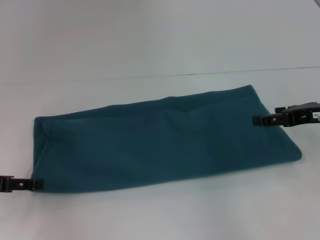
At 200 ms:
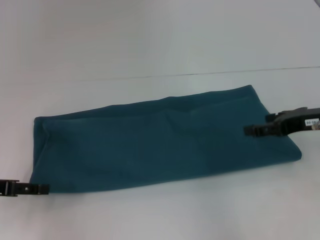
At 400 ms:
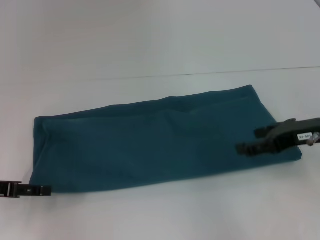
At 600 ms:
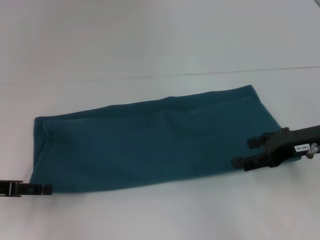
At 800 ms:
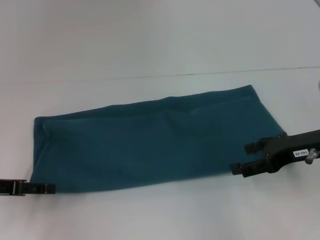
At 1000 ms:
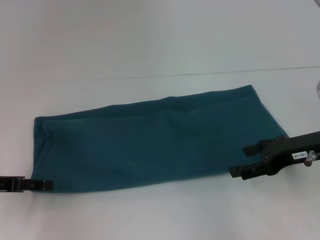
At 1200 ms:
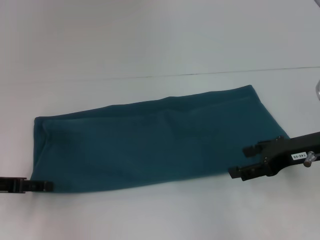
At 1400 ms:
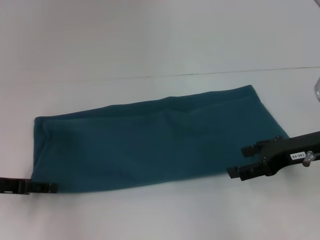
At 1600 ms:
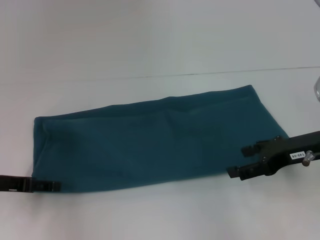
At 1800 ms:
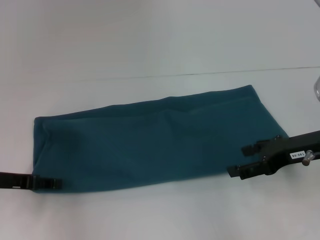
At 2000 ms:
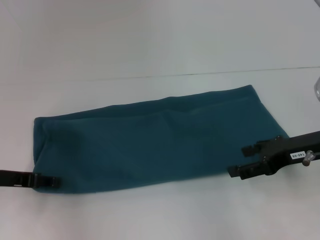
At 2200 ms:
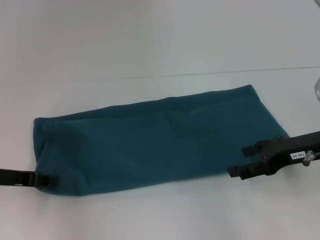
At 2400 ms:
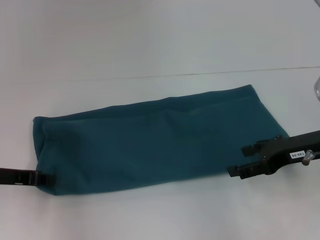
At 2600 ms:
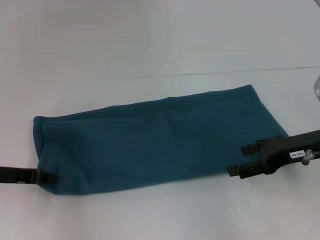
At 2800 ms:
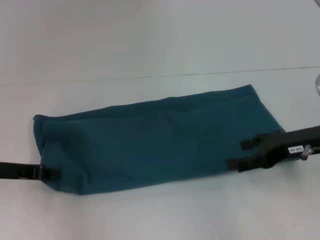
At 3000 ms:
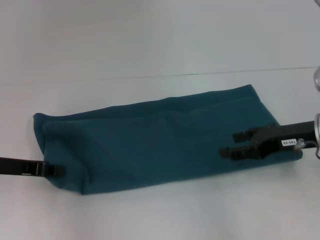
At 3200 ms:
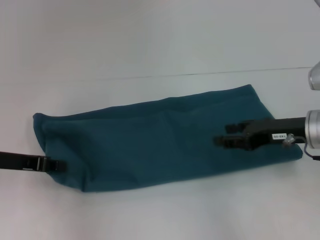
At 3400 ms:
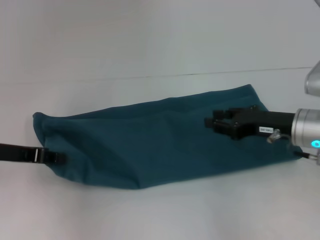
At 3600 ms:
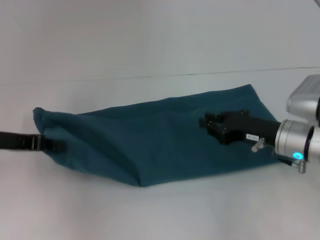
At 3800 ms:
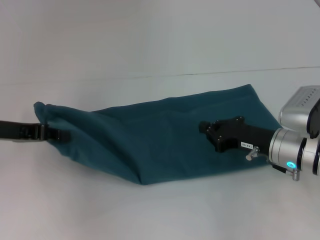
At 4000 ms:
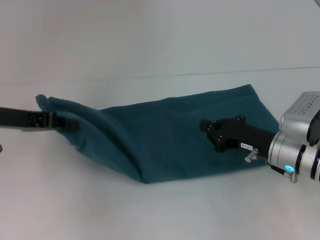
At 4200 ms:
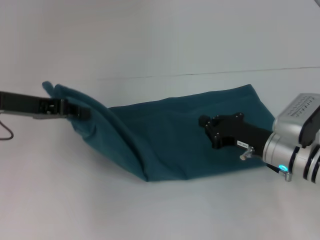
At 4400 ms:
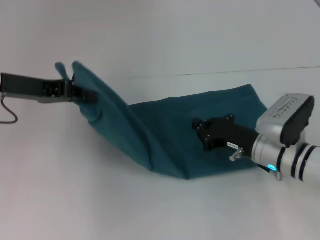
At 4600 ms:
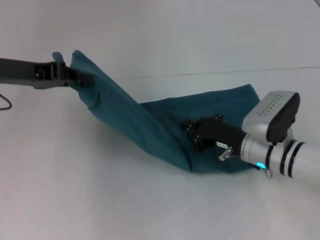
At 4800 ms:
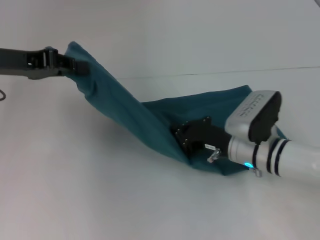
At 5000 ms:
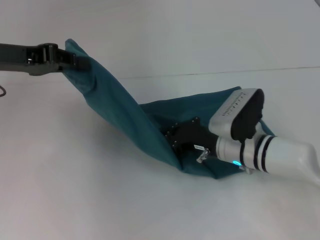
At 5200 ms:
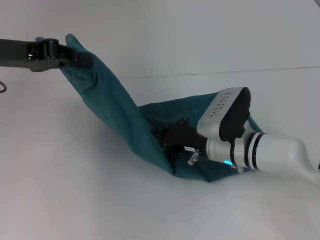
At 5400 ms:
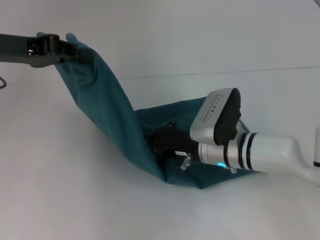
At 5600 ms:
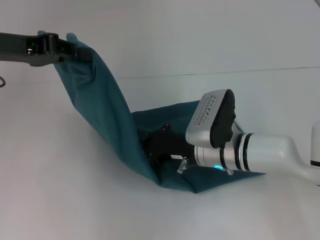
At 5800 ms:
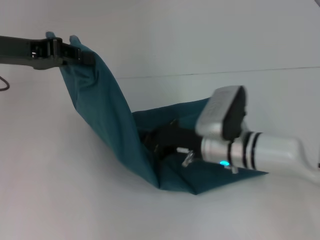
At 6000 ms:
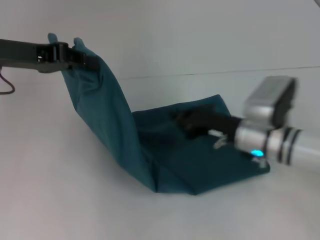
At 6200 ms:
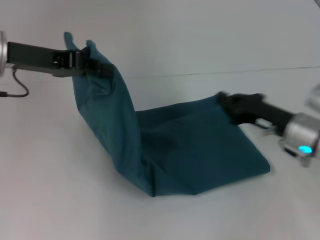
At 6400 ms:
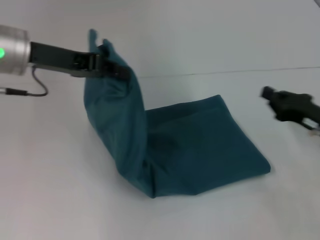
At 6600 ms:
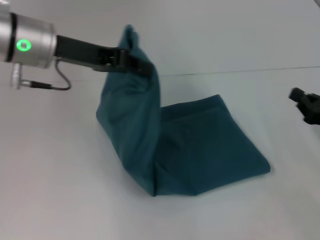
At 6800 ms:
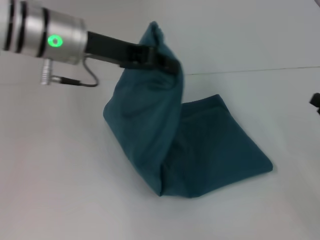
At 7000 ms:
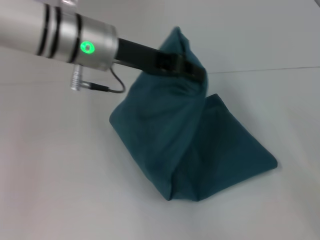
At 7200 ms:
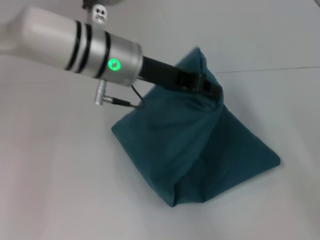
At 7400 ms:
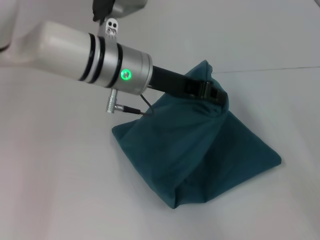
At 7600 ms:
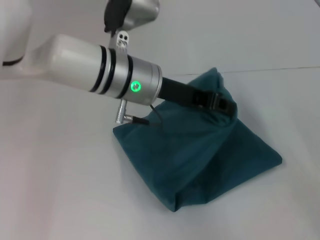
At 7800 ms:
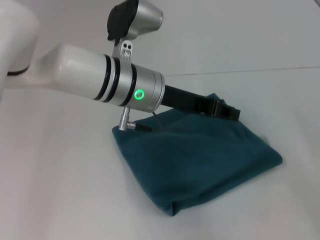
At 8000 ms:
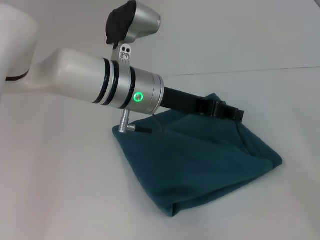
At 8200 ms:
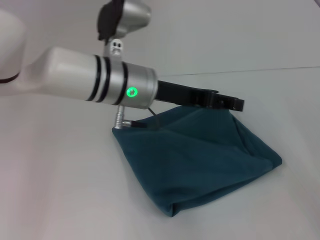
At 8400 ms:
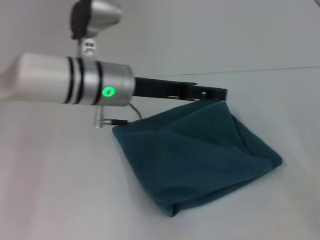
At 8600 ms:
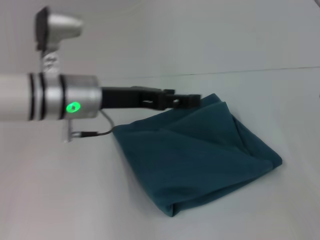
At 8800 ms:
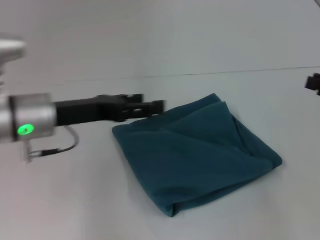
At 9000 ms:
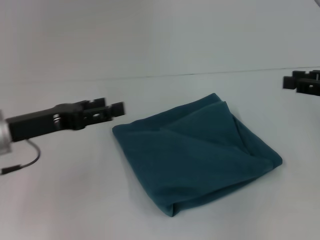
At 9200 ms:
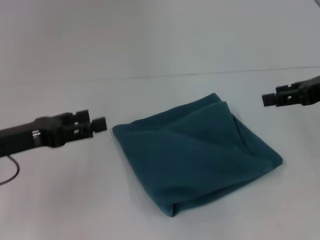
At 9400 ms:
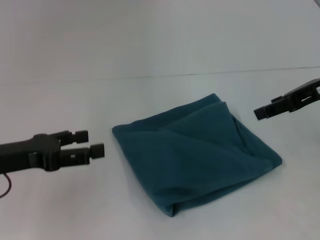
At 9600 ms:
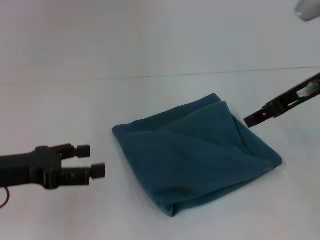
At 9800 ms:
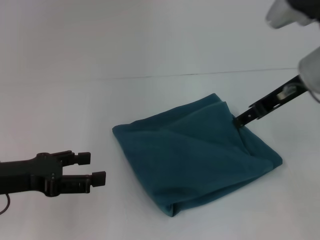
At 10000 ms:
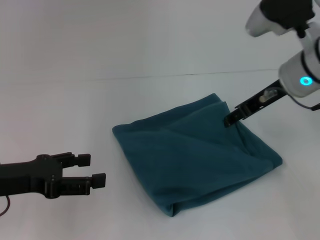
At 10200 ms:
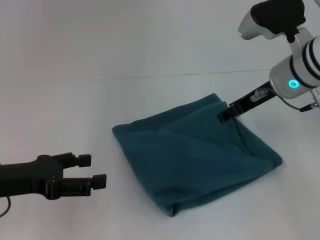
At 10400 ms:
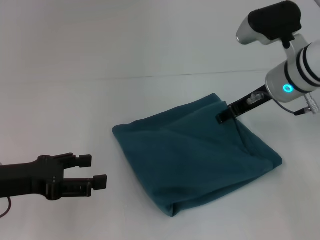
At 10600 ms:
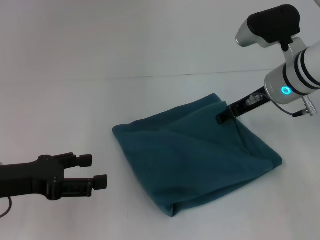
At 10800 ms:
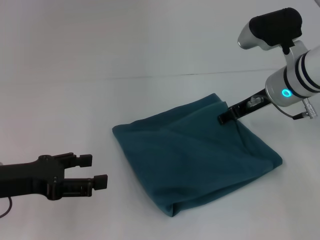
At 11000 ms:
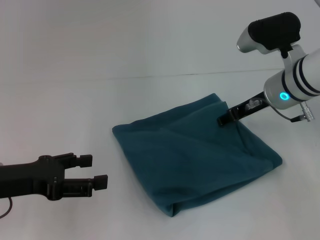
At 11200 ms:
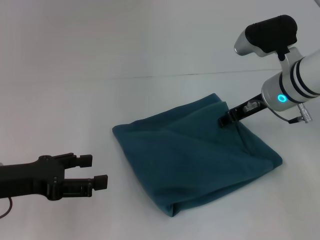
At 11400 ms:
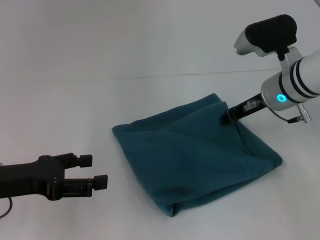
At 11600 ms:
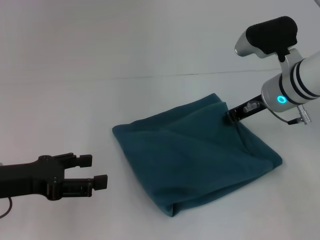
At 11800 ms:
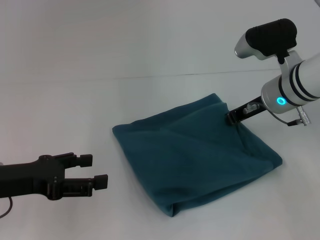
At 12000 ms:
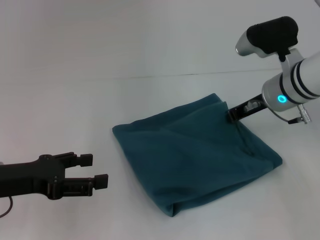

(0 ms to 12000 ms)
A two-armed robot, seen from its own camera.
Step, 0 ms - 5800 ms: Press the middle of the clothes with your right hand.
Step, 6000 ms - 8000 ms: Fold the clothes to the left.
1600 ms - 3000 ms: The left gripper closes its fingers.
3000 ms - 4400 ms: The left gripper shifts approximately 10 cm upward and forward; the right gripper moves downward and to the left, roughly 10 cm, and closes up.
4400 ms - 6000 ms: The right gripper moves roughly 10 cm to the left and comes back.
6000 ms - 7600 ms: The right gripper moves to the right and backward, some 25 cm. The left gripper shifts some 20 cm to the right.
7600 ms - 9000 ms: The right gripper heads upward, covering about 10 cm. The left gripper travels to the left by about 20 cm, and opens its fingers.
9000 ms - 10400 ms: The left gripper shifts about 5 cm backward, while the right gripper is displaced to the left and forward by approximately 20 cm, and opens.
10400 ms - 12000 ms: The right gripper closes.

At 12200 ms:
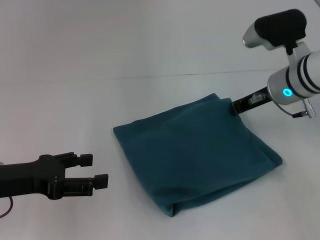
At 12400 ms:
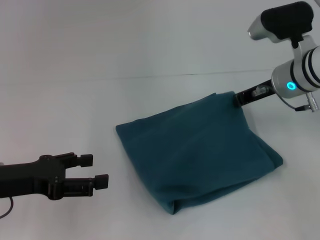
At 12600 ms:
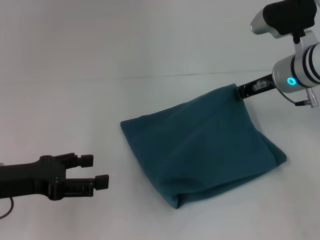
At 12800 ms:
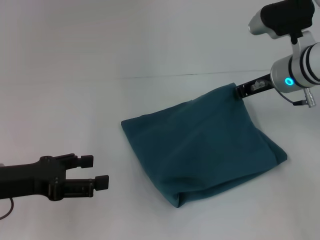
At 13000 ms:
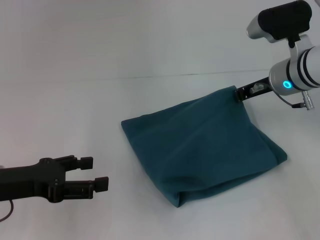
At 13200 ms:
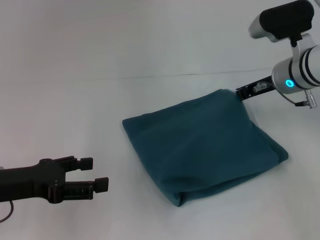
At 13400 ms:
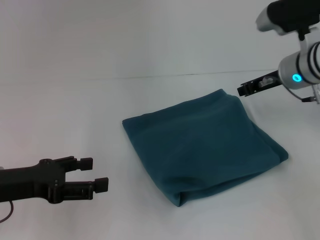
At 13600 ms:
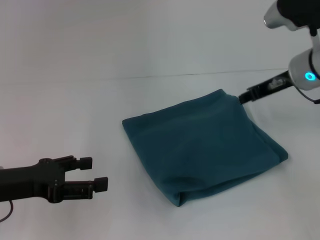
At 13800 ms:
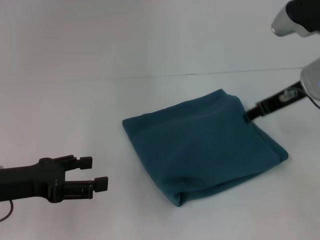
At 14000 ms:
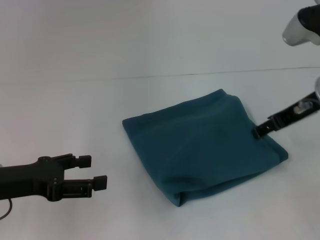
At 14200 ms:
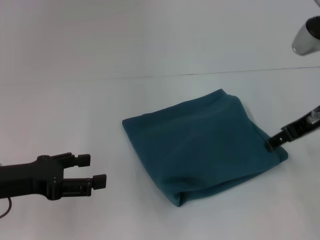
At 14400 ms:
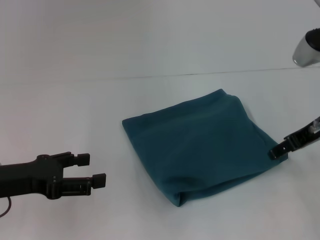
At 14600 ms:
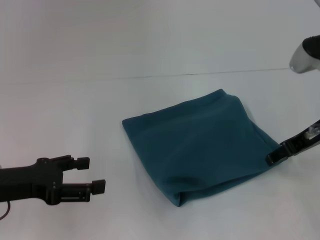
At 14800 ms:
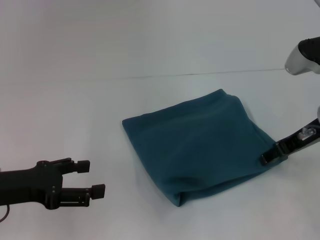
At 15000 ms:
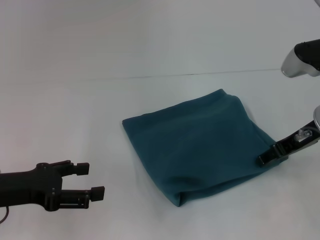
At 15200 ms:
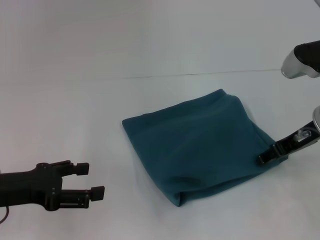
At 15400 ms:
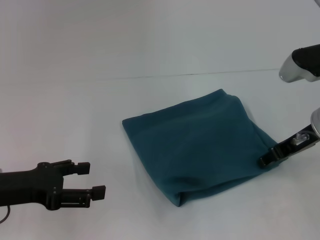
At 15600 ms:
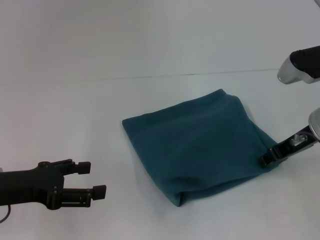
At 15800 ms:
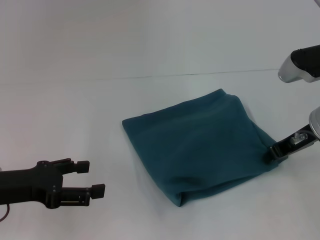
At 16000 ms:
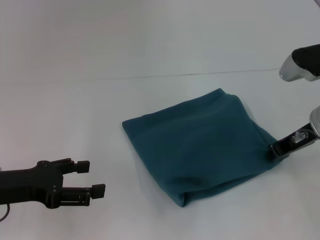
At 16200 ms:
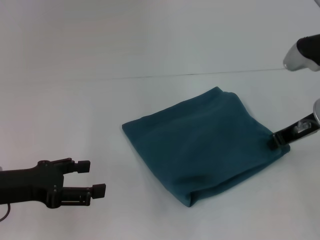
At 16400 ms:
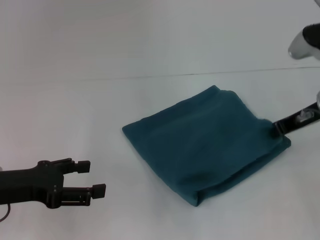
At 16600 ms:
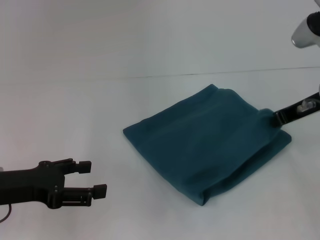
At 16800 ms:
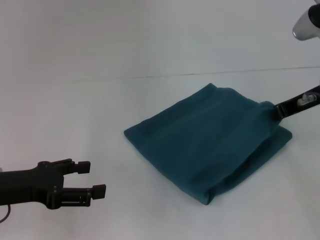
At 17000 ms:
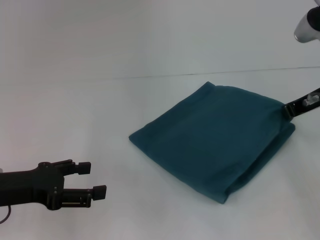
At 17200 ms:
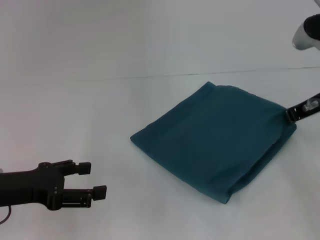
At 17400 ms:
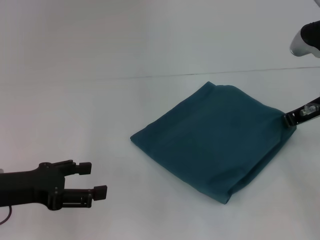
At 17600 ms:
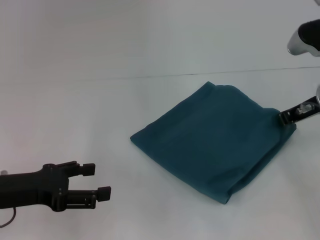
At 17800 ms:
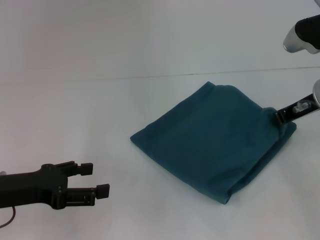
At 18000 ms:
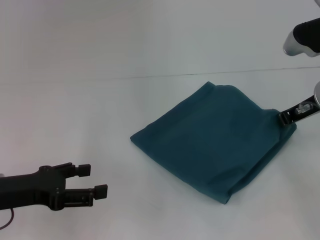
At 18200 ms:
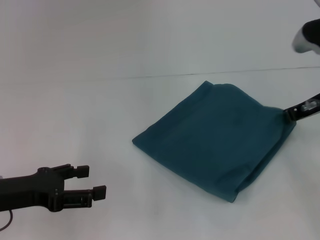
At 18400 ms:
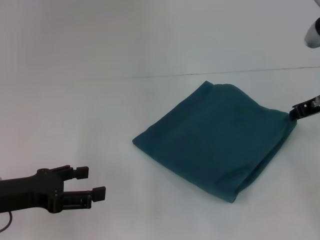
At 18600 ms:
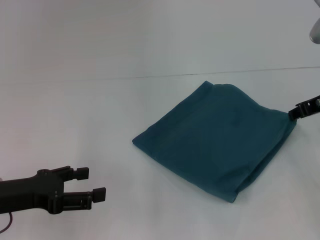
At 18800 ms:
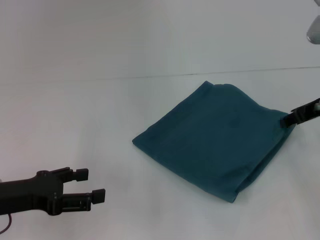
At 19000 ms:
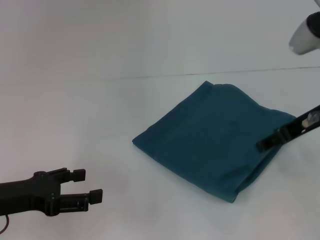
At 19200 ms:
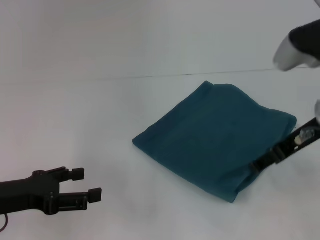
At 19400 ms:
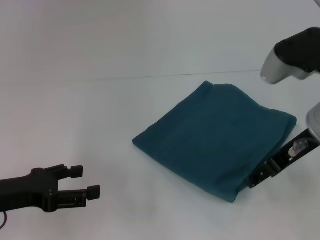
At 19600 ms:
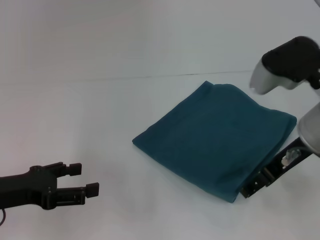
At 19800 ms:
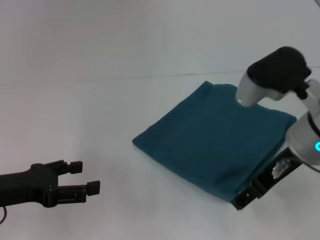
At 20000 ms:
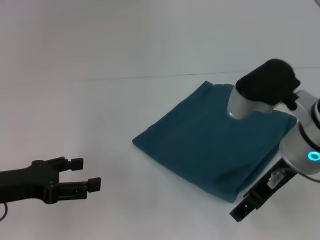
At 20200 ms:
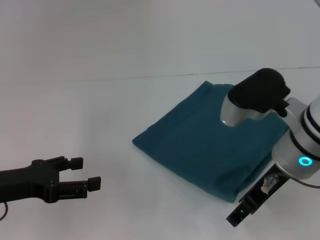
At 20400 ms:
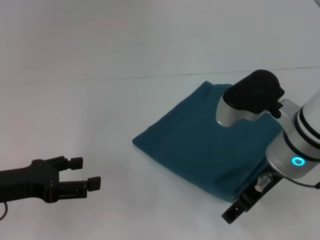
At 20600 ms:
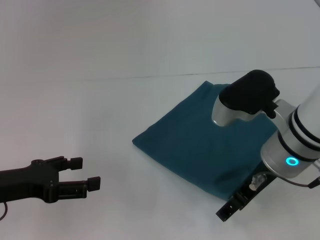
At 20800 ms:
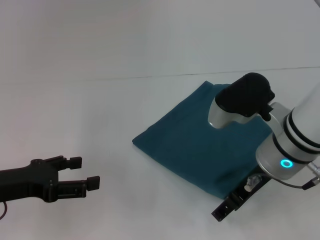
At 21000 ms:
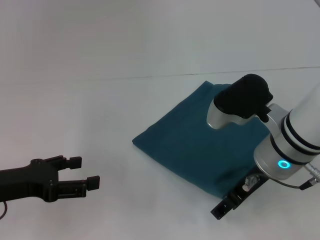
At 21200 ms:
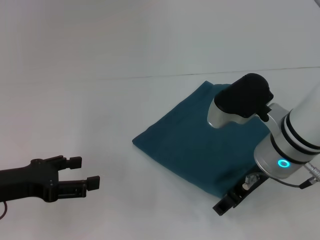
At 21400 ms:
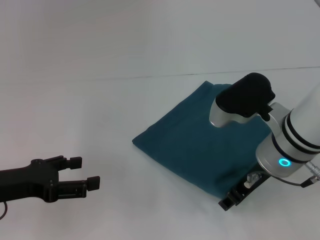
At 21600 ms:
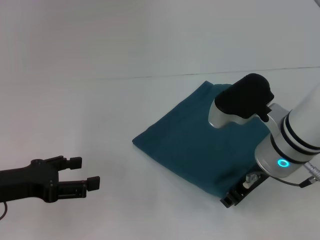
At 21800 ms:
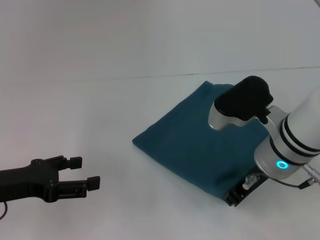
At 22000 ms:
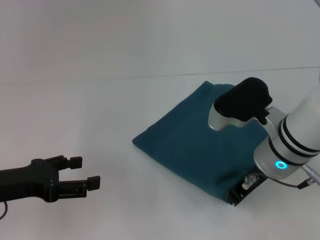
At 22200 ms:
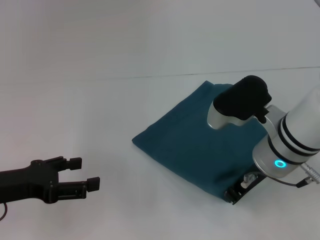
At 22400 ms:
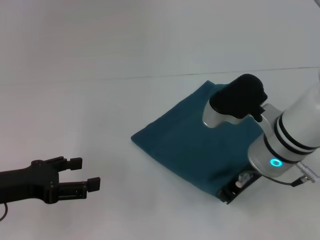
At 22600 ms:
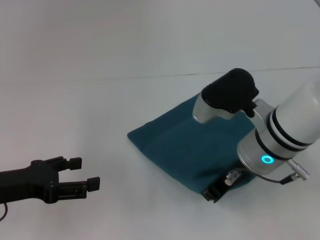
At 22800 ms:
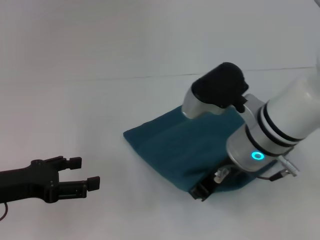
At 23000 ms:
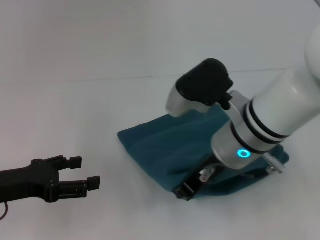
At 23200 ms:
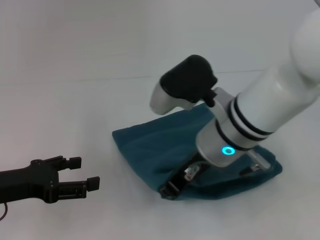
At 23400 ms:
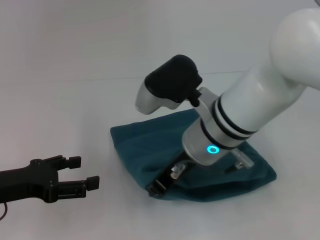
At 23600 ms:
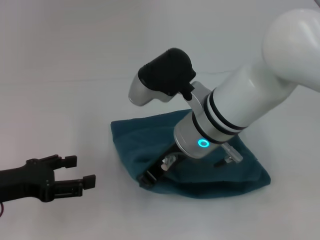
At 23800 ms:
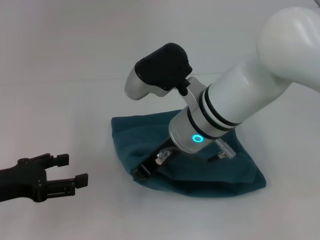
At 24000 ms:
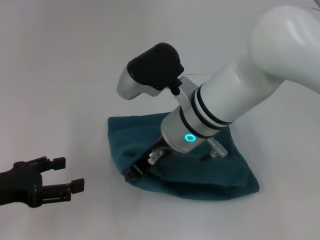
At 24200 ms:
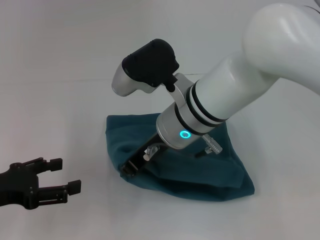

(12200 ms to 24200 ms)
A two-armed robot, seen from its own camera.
12200 ms - 13800 ms: The right gripper moves approximately 5 cm, and opens up.
13800 ms - 15200 ms: The right gripper ends up some 5 cm from where it was.
15200 ms - 16600 ms: The right gripper closes.
16600 ms - 18200 ms: The grippers move only a little.
18200 ms - 19800 ms: The right gripper goes some 10 cm to the left and backward, and opens its fingers.
19800 ms - 21200 ms: The right gripper ends up approximately 5 cm from where it was.
21200 ms - 22600 ms: The right gripper closes up.
22600 ms - 24200 ms: The right gripper is displaced to the left by approximately 10 cm.
